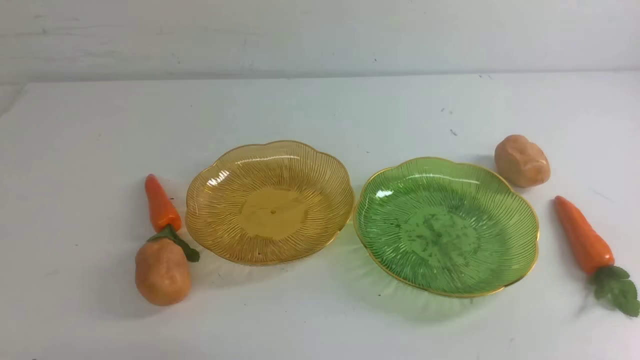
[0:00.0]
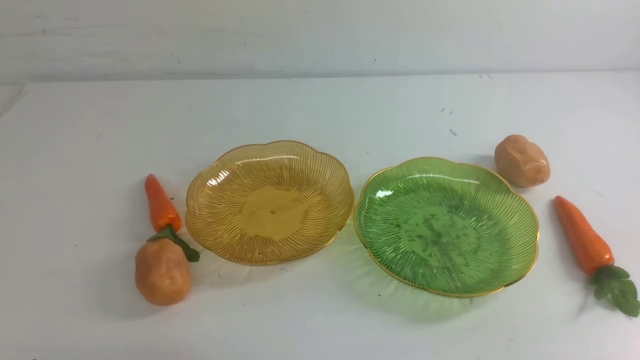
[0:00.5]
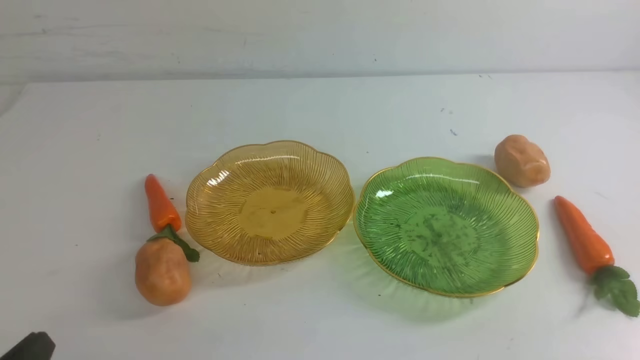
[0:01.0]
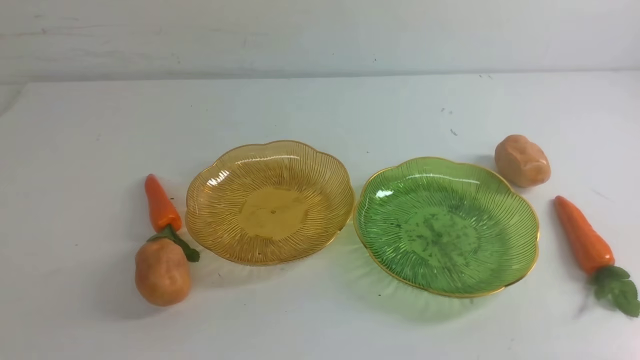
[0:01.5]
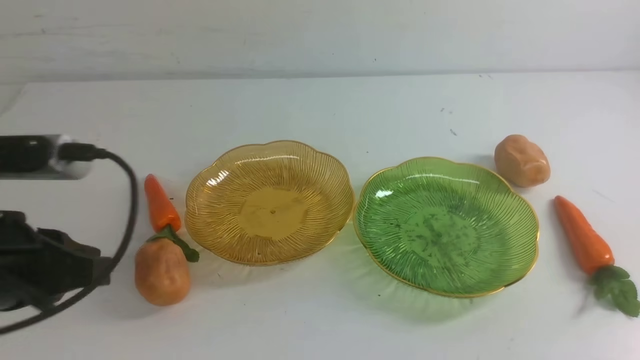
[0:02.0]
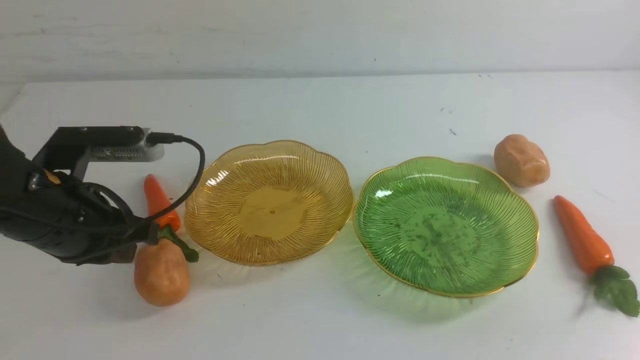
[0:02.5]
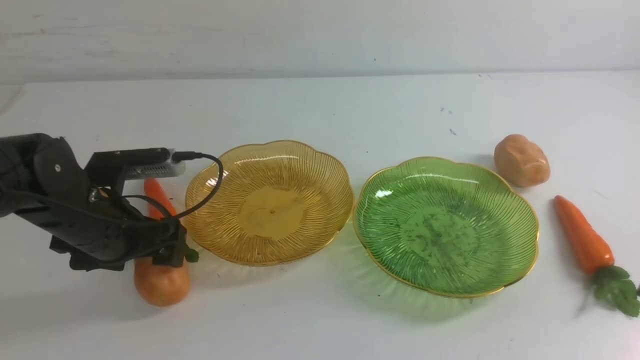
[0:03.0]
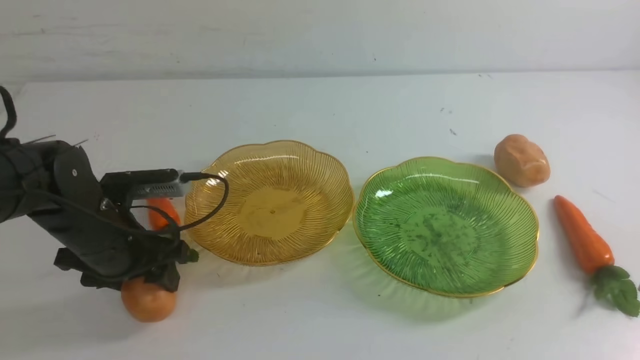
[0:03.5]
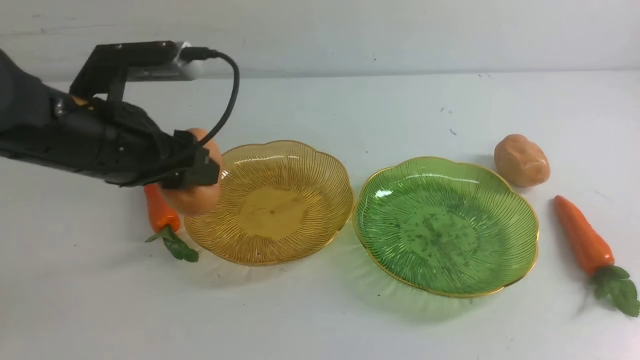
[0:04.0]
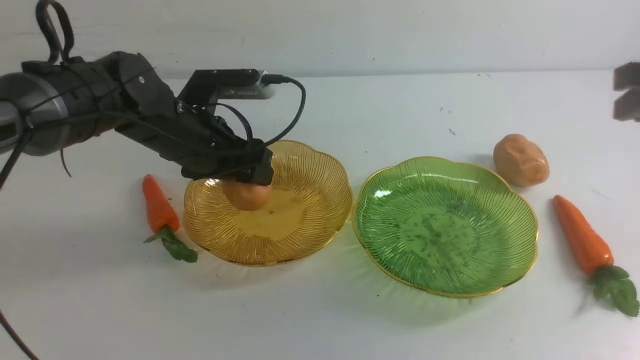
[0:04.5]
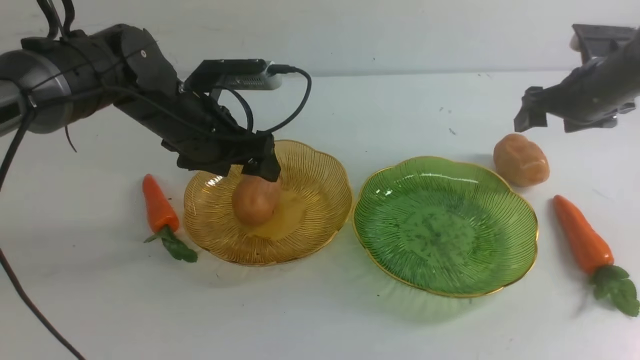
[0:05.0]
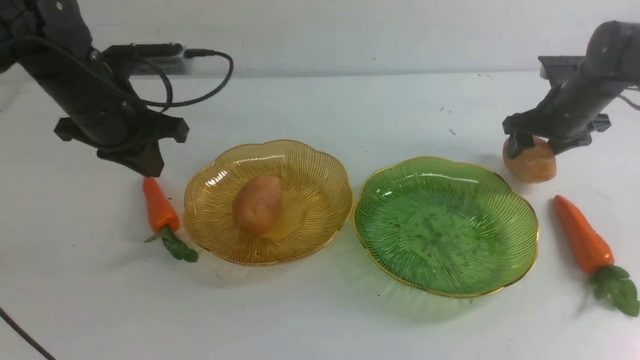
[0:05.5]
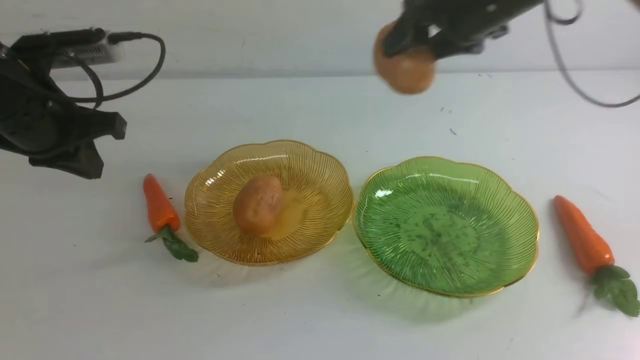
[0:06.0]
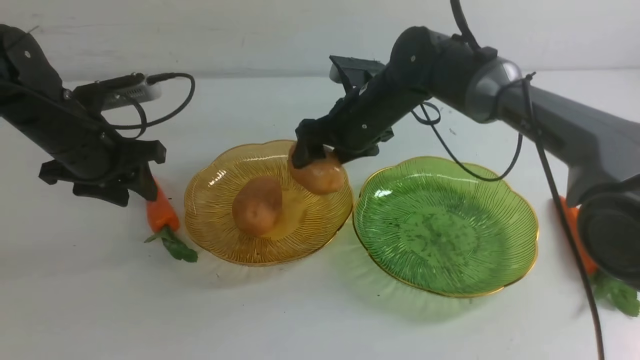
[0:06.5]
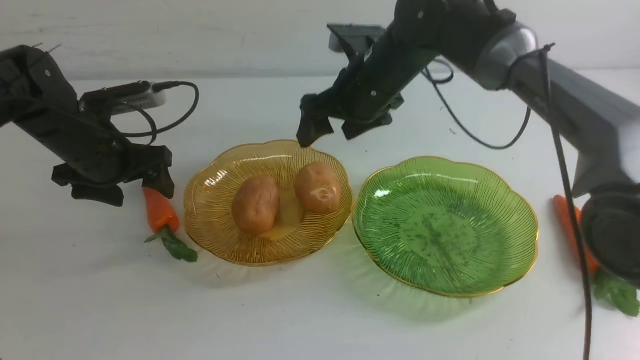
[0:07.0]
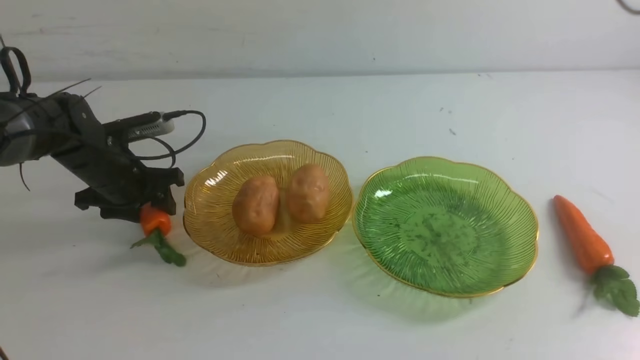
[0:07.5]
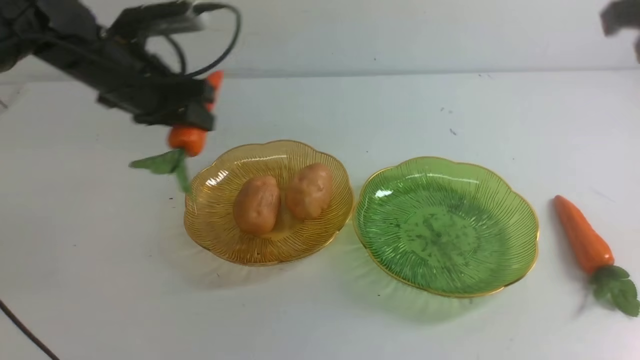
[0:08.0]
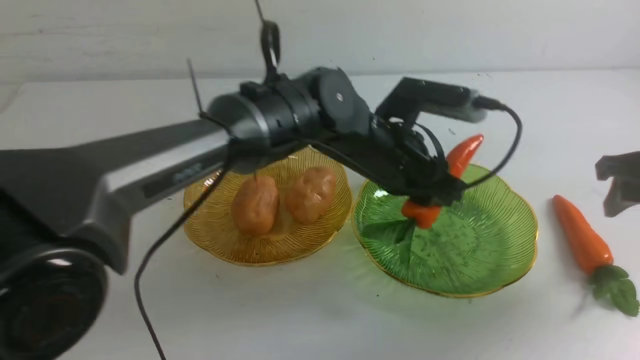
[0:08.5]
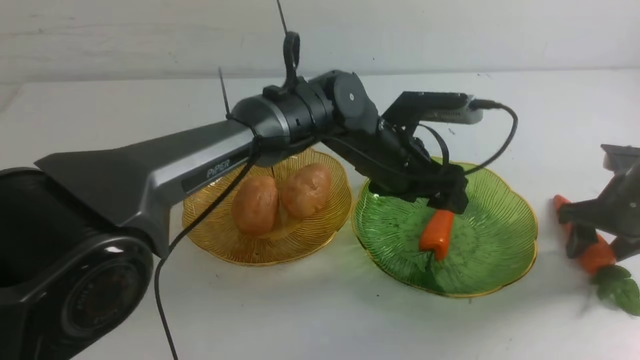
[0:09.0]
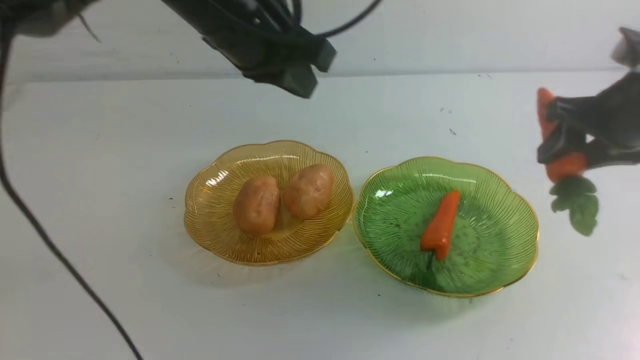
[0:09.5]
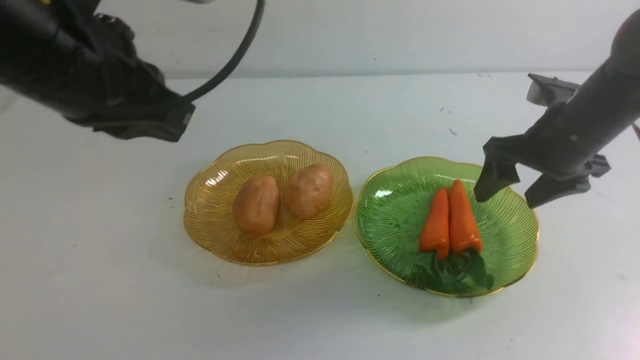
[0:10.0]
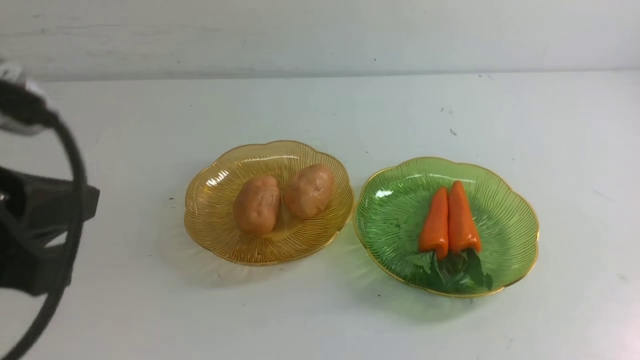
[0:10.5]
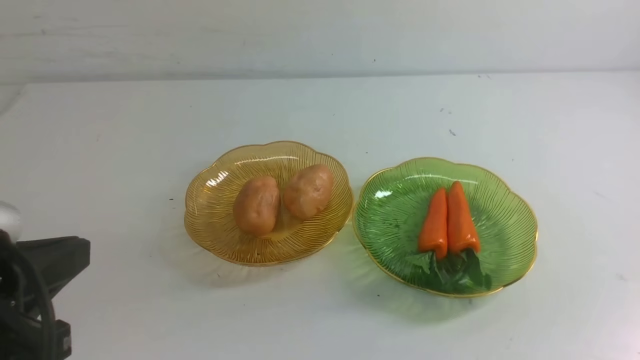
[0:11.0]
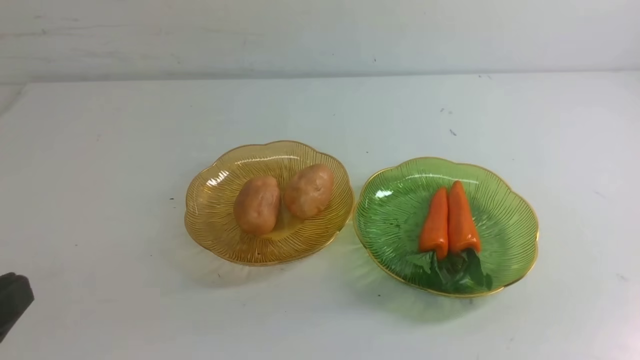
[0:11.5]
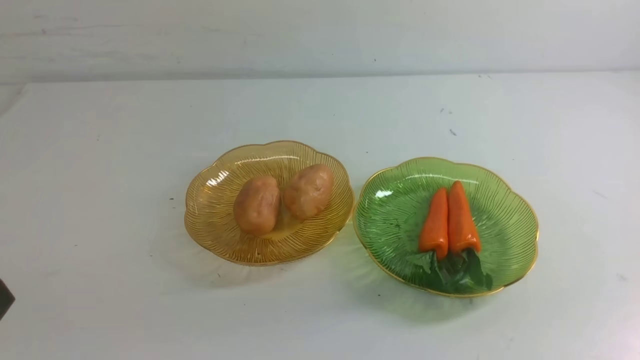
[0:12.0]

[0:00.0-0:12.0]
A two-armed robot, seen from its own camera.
Step, 0:00.0 to 0:04.5: Grab a potato with your left arm and put it on the left plate.
Step, 0:05.0 to 0:06.5: Grab a potato with your right arm and put it on the left plate.
Step, 0:07.0 to 0:08.5: use the left arm to grab a carrot and put it into the right plate.
Step, 0:09.0 to 0:09.5: use the right arm to grab a carrot and put it into the right plate.
0:00.0 to 0:02.0: The left gripper moves forward and upward, some 20 cm.
0:02.0 to 0:04.0: The left gripper shifts roughly 15 cm forward and to the right, and opens its fingers.
0:04.0 to 0:06.0: The left gripper goes some 10 cm to the left, and closes up, while the right gripper is displaced forward and to the left by approximately 35 cm, and opens up.
0:06.0 to 0:08.0: The right gripper moves to the right and backward, about 25 cm, and closes, then opens again; the left gripper is displaced to the right by approximately 30 cm, and opens up.
0:08.0 to 0:10.0: The right gripper is displaced backward and upward by some 35 cm, and closes up, while the left gripper goes about 40 cm backward, to the left and upward, and closes.
0:10.0 to 0:12.0: The left gripper travels downward by approximately 15 cm.

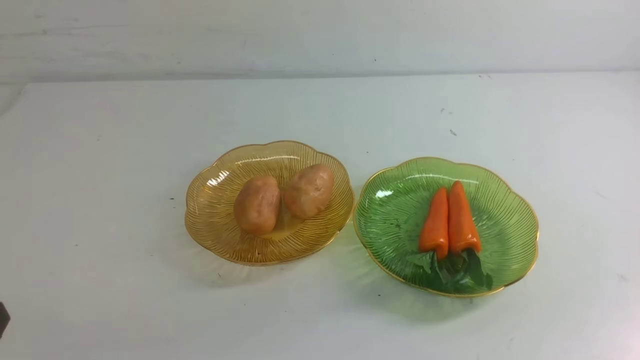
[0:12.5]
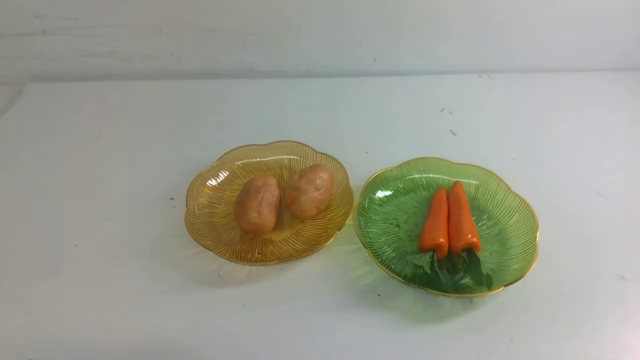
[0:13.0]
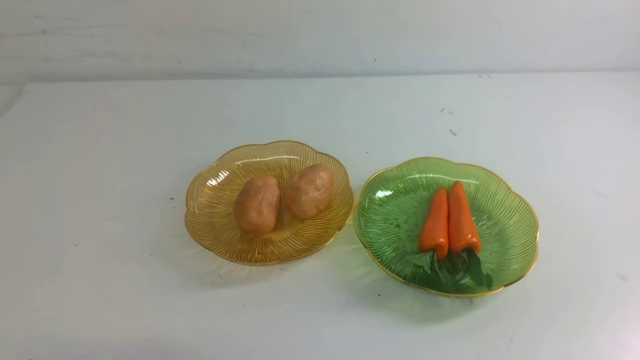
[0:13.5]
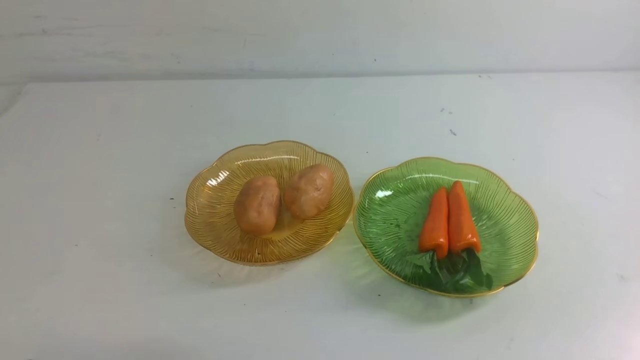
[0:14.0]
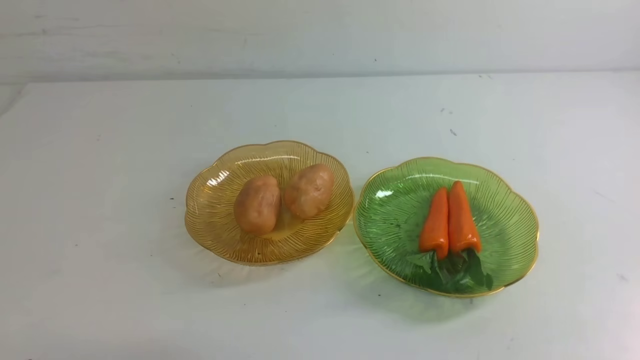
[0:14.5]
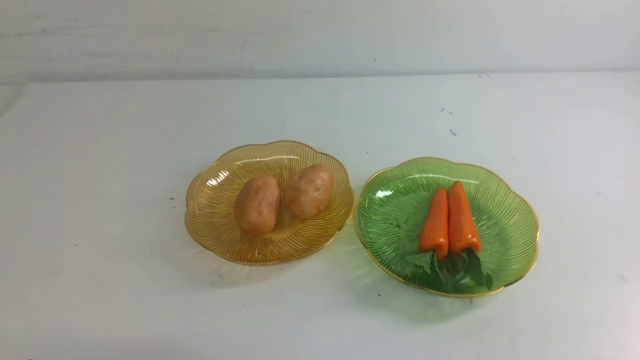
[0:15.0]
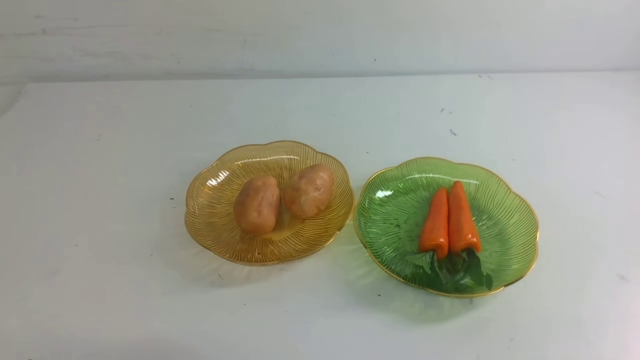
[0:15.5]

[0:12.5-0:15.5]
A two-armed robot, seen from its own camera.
0:14.0 to 0:15.5: The two grippers keep their place.
